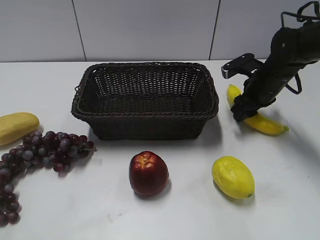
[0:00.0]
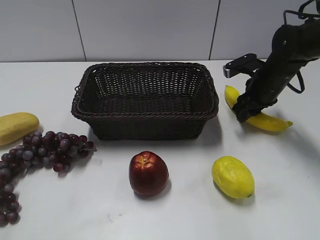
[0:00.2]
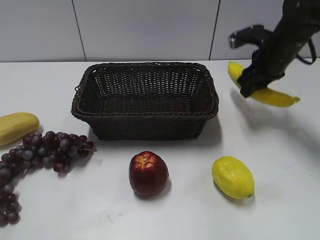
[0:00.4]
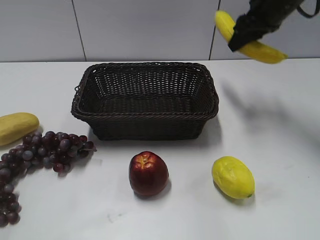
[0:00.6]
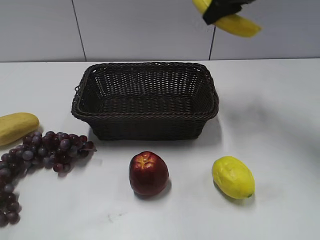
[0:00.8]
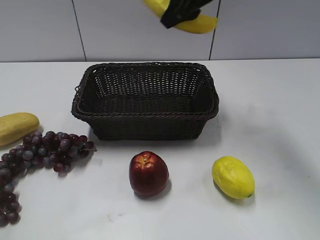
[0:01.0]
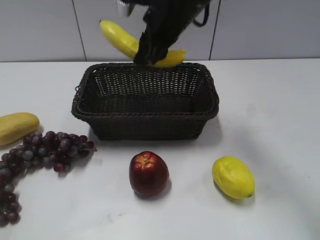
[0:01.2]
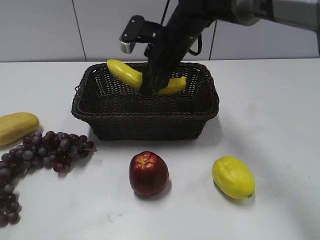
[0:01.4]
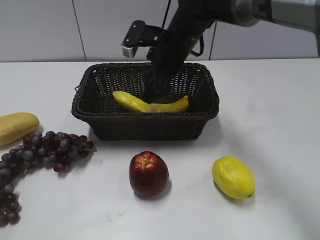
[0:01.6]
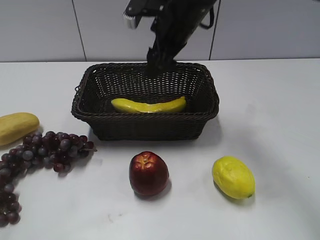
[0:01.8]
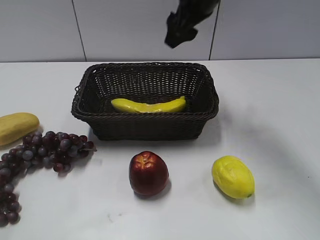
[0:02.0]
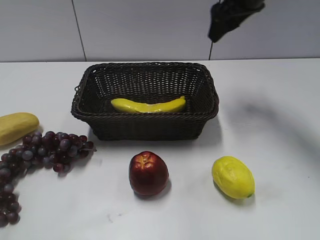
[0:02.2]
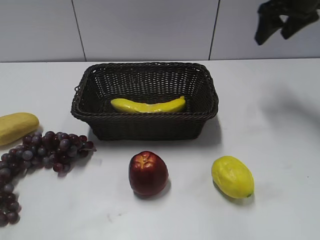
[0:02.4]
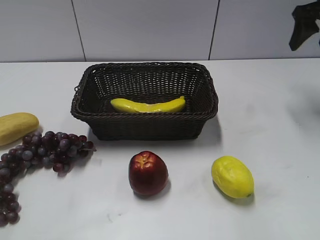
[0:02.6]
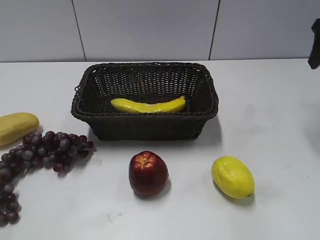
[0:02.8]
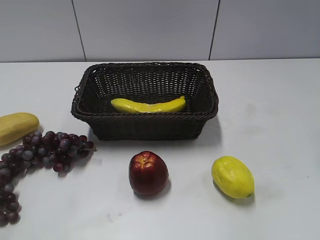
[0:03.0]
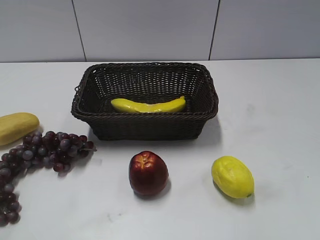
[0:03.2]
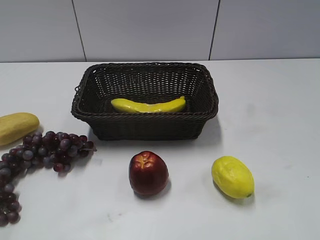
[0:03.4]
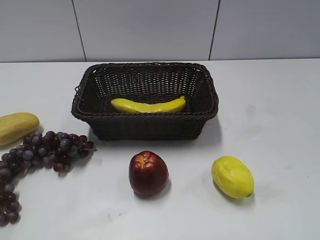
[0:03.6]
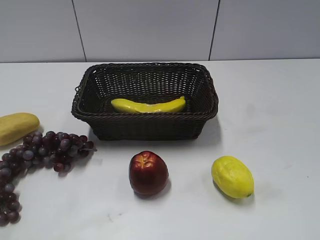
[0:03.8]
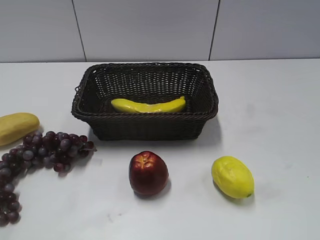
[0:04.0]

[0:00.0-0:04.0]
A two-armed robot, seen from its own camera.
Step, 0:00.2 to 0:01.6: Place the banana in the basket with right gripper.
0:00.0 to 0:01.4: The right gripper moves to the left and upward, roughly 20 cm.
0:01.4 to 0:02.6: The right gripper shifts about 30 cm to the right, and opens up.
0:02.6 to 0:04.0: The right gripper travels backward by roughly 40 cm.
